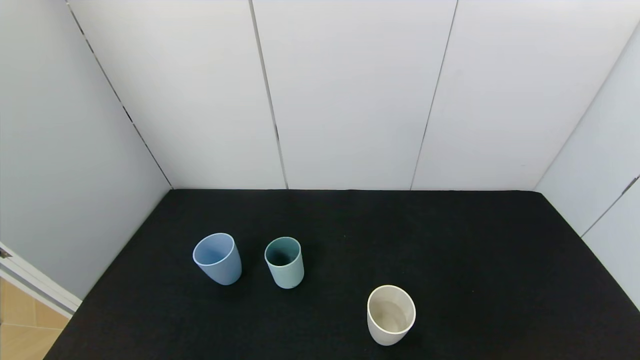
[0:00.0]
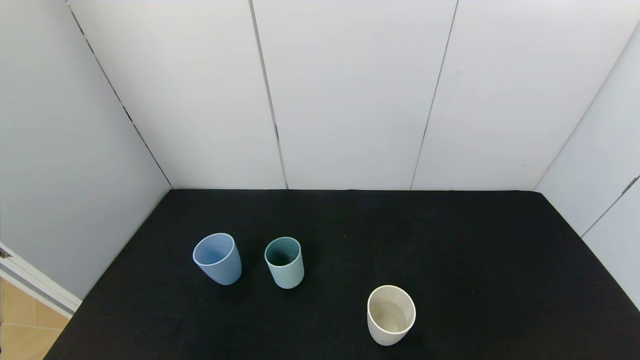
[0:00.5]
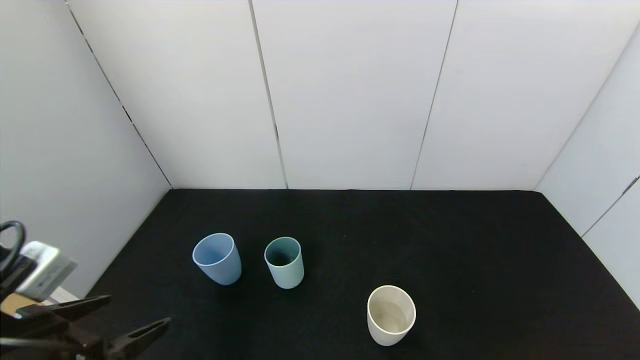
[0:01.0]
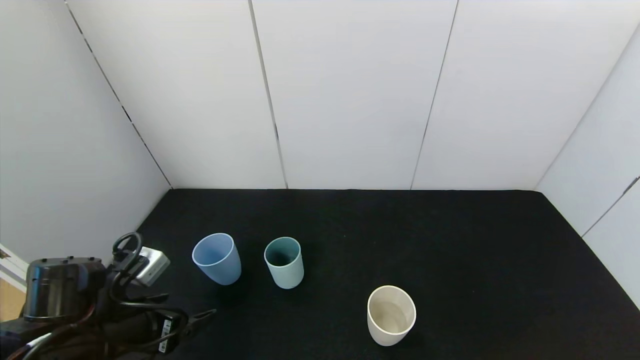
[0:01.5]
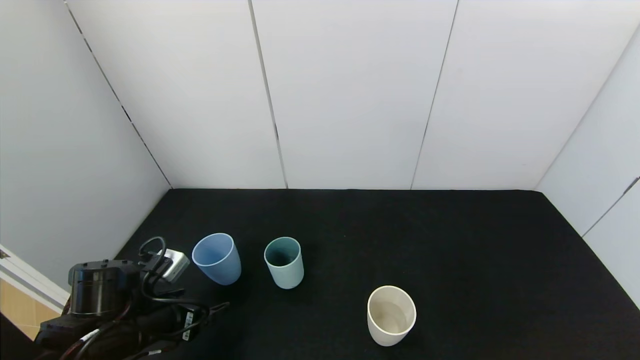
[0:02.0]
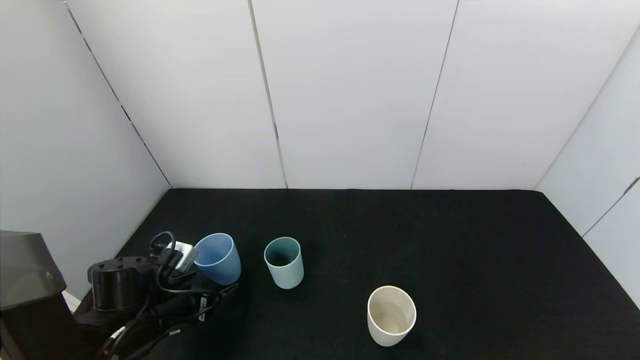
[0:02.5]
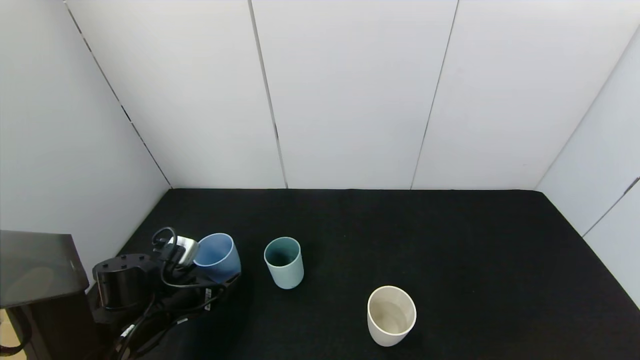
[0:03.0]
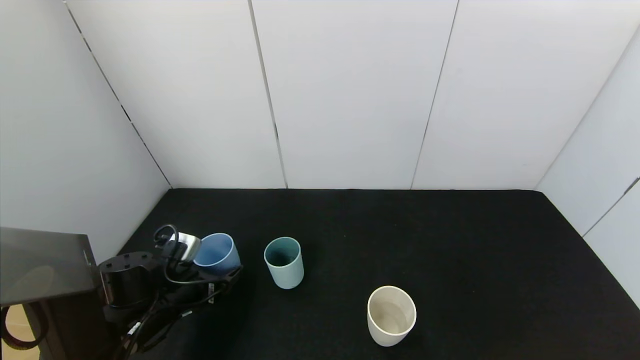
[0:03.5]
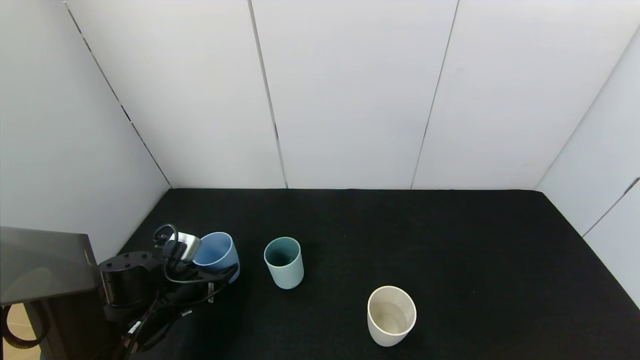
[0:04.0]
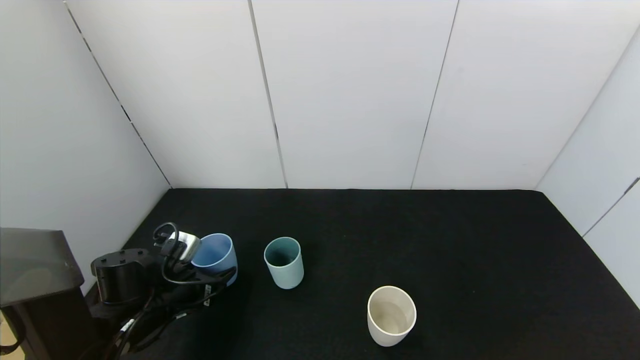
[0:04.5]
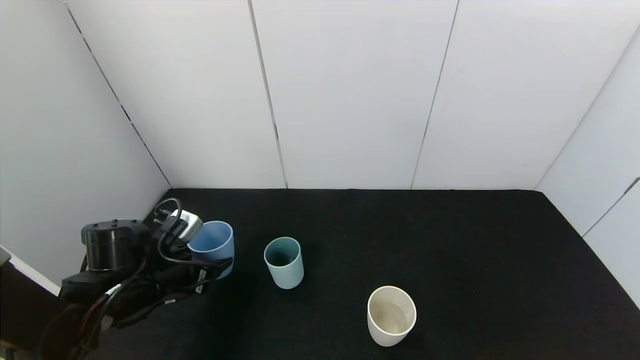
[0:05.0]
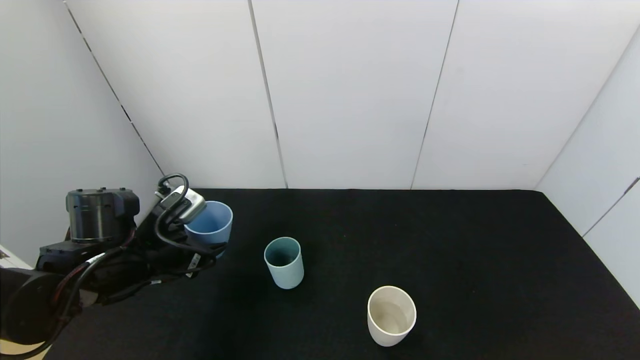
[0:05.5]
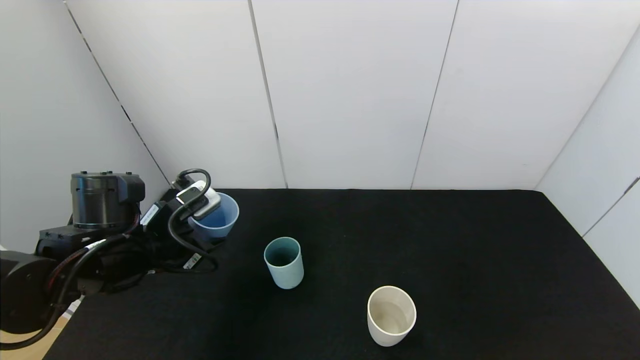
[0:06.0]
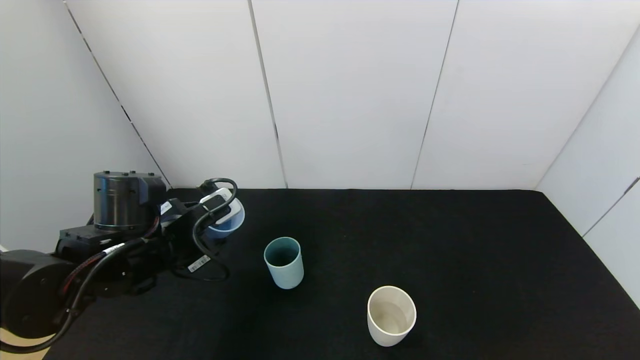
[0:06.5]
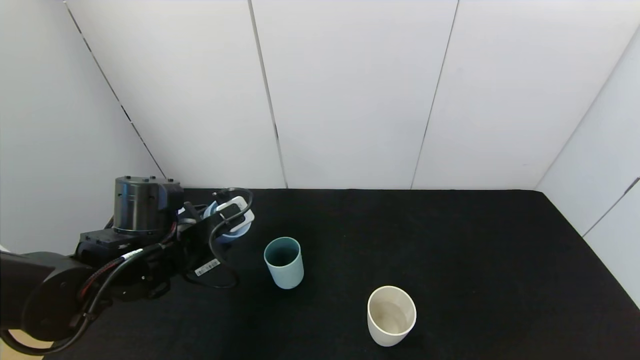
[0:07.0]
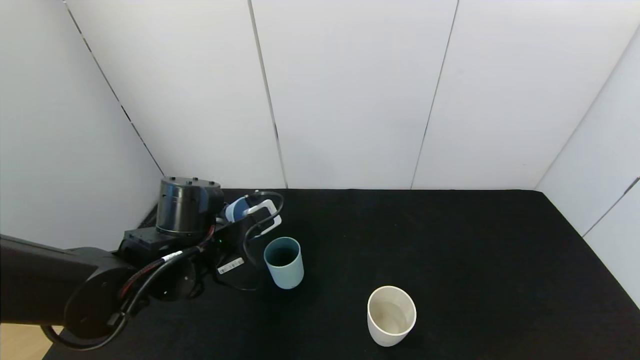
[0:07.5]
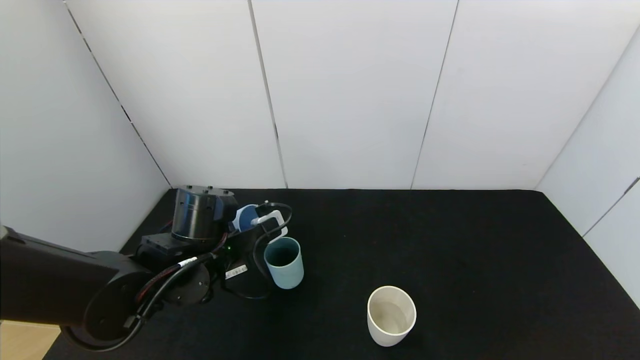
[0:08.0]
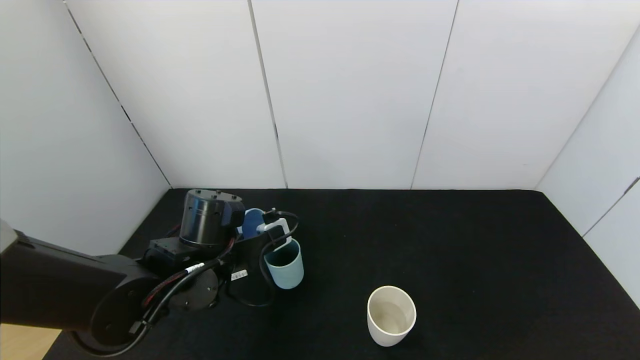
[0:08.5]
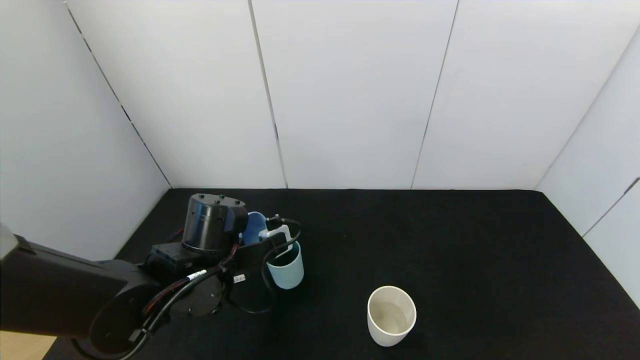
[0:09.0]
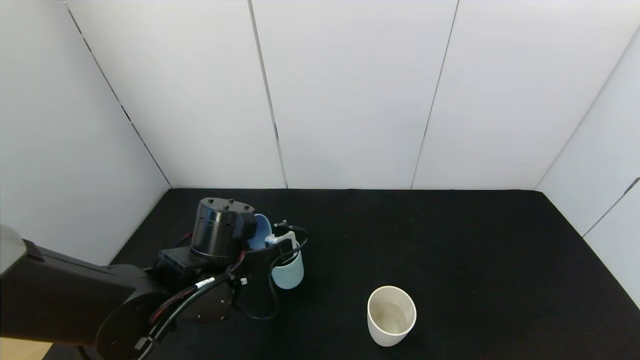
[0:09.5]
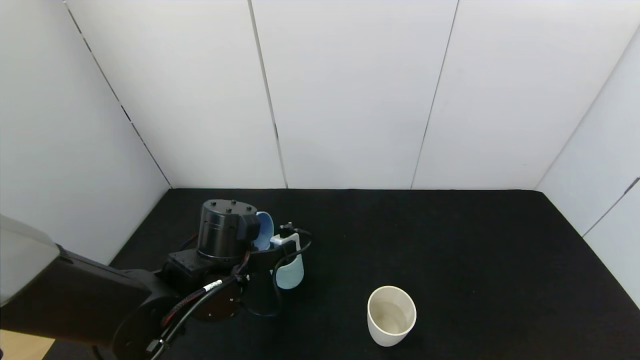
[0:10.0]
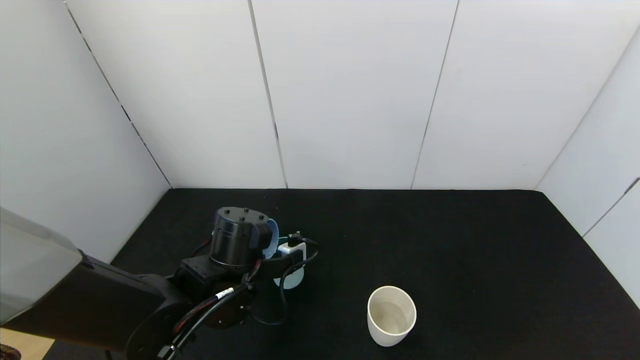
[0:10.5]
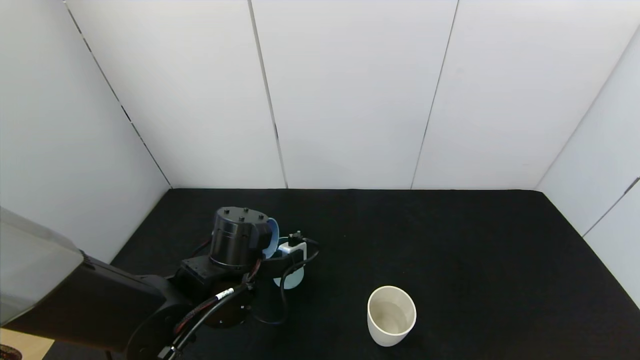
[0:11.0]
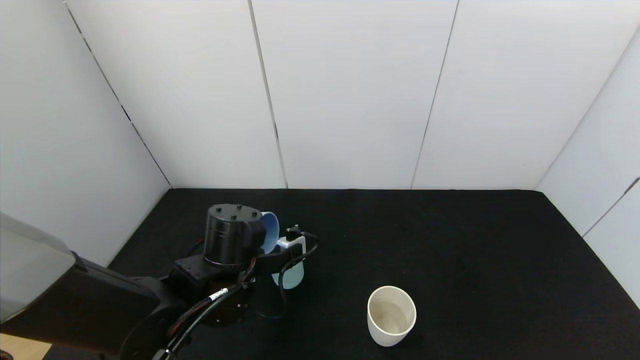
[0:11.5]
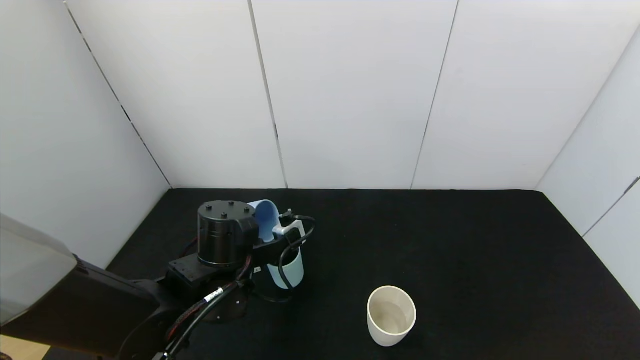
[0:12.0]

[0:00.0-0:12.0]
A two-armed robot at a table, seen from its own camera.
Task of the whole recording: use the gripper to pour the water into the other two cups on black table.
Step, 0:00.0 to 0:04.0: Grasp the blue cup with the left gripper.
Step, 0:04.5 to 0:12.0: Pour water from blue cup to green cup with the left gripper.
0:00.0 to 0:02.0: The left gripper is displaced forward by approximately 25 cm.
0:02.0 to 0:04.0: The left gripper travels forward by about 5 cm, and closes.
0:04.0 to 0:06.0: The left gripper goes about 15 cm upward.
0:06.0 to 0:08.0: The left gripper travels to the right by approximately 10 cm.
0:08.0 to 0:10.0: The grippers make only small movements.
0:10.0 to 0:12.0: The grippers make only small movements.

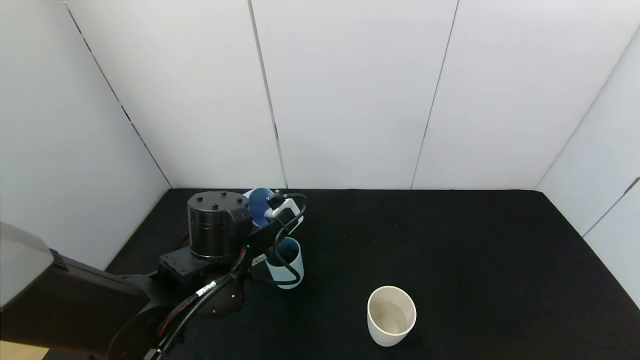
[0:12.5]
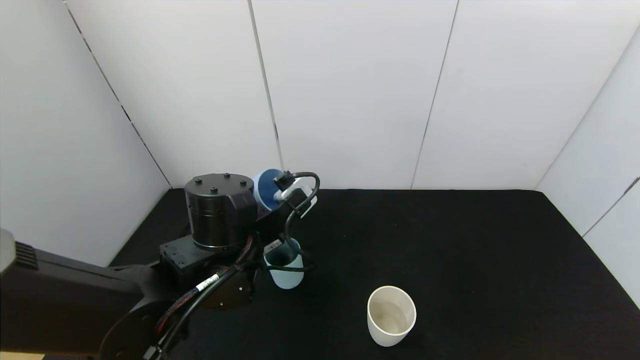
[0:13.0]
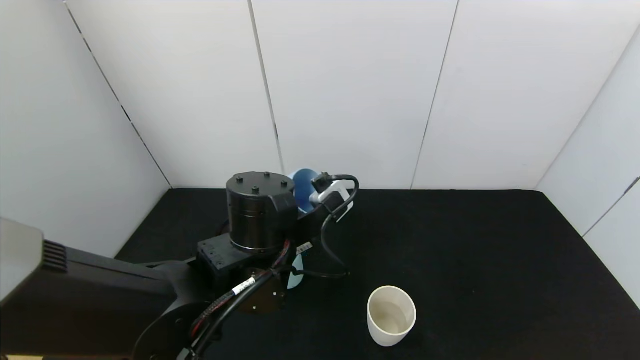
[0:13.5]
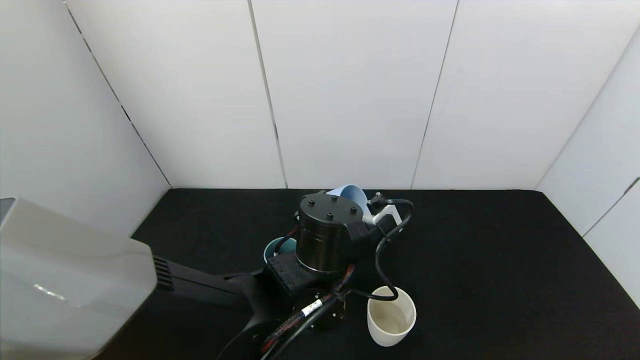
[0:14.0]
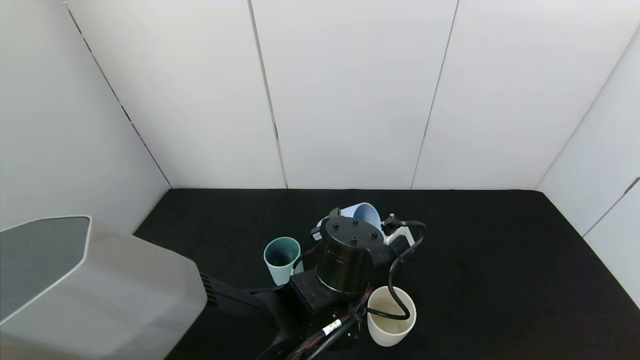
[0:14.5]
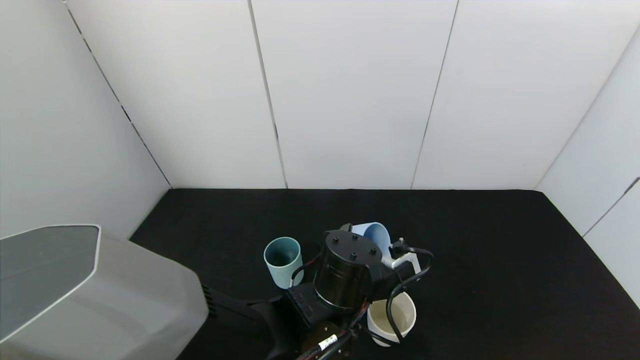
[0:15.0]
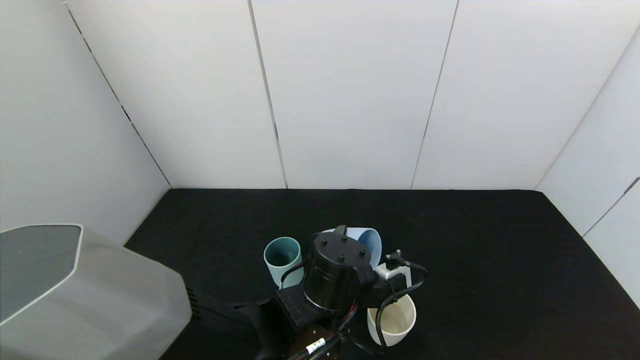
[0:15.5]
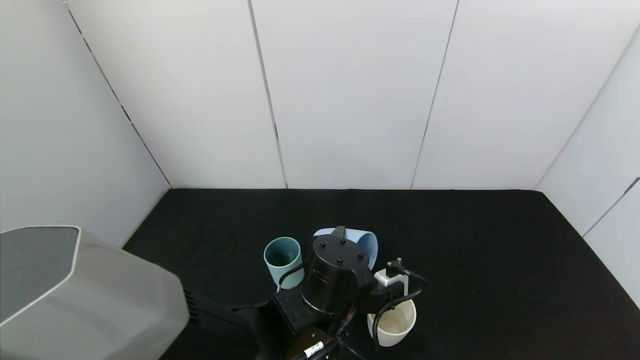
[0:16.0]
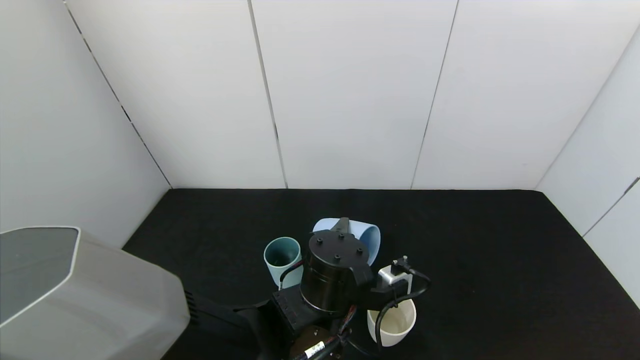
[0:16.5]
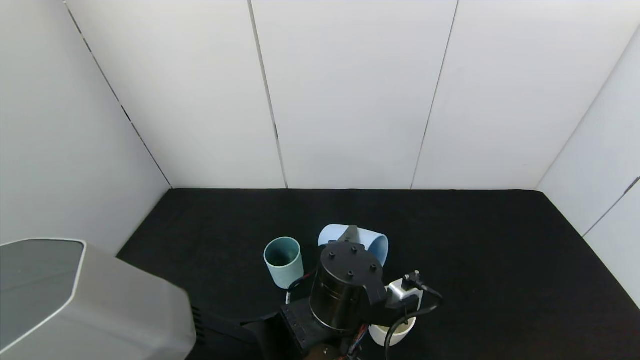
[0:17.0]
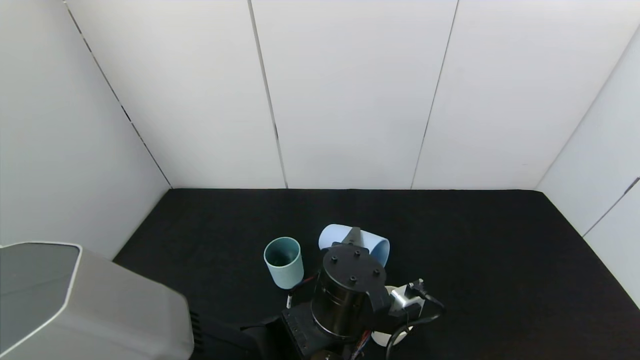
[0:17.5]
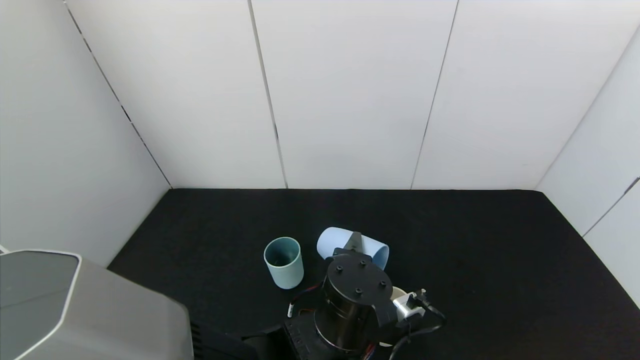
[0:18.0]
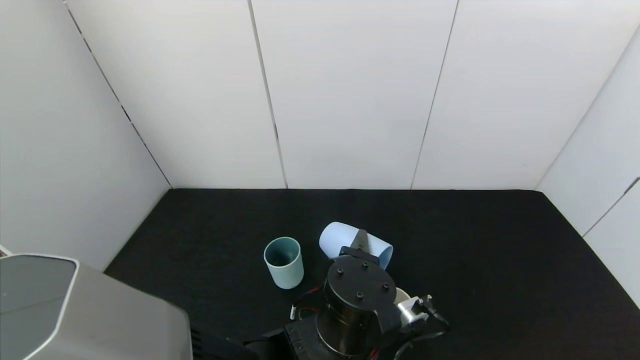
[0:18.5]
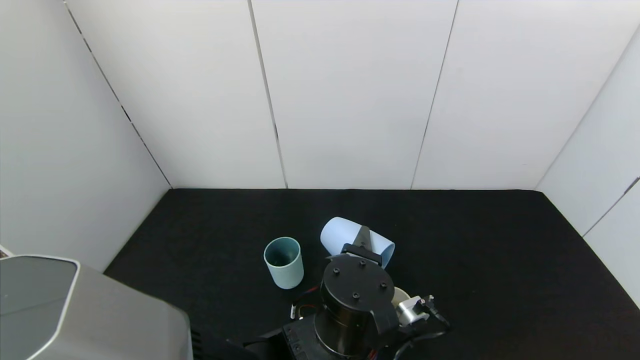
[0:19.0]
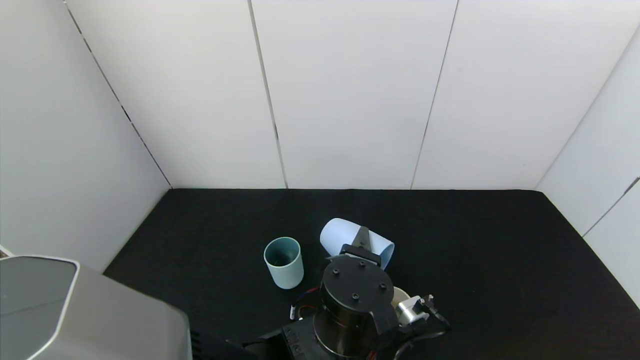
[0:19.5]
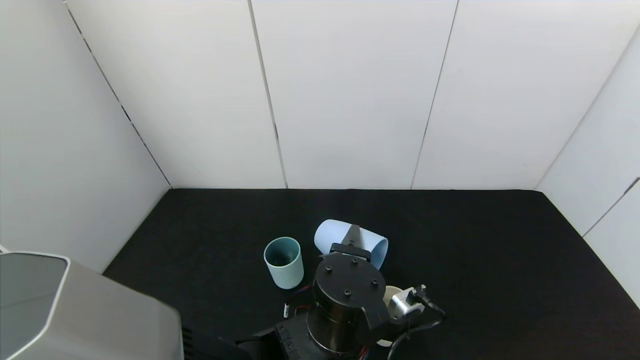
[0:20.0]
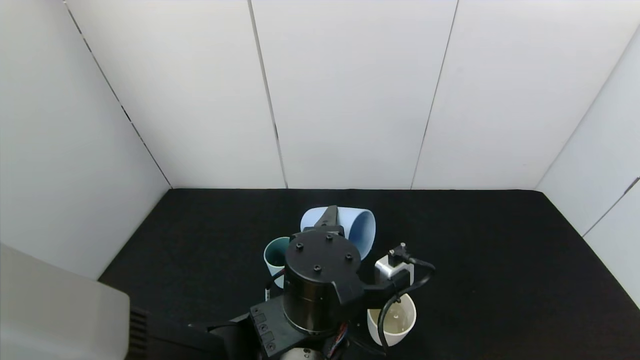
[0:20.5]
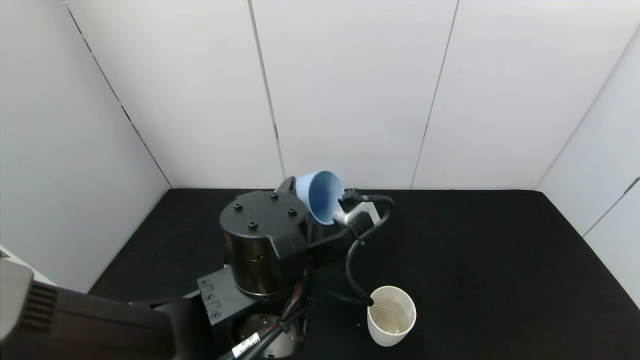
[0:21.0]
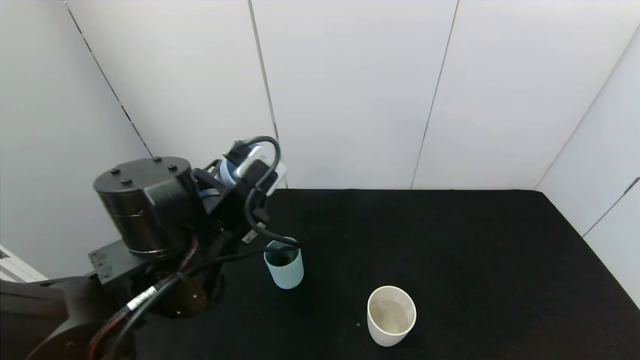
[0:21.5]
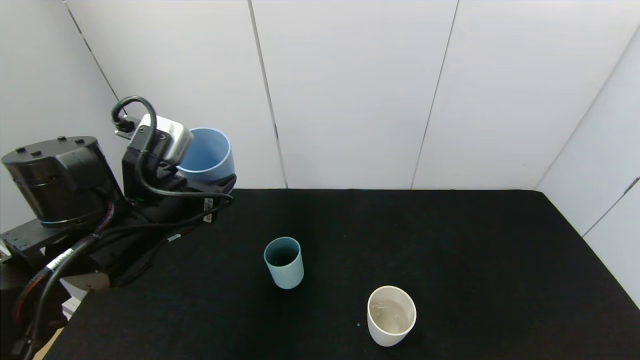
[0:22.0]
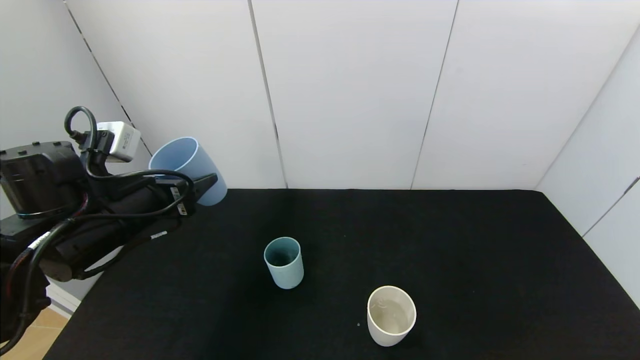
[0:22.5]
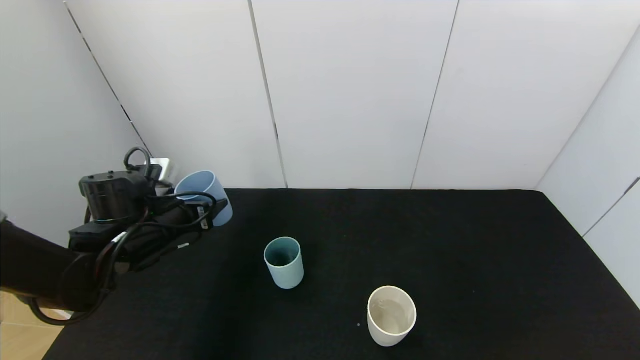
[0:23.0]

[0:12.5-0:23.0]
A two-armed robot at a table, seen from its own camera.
Task of the whole recording: use the gripper to pour the water into the other two cups on black table.
Step, 0:12.5 to 0:20.0: Pour water from blue cup to white cup with the left gripper.
0:12.5 to 0:14.5: The left gripper shifts roughly 15 cm to the right.
0:16.5 to 0:19.0: There are only small adjustments of the grippers.
0:19.0 to 0:21.0: The left gripper moves upward and to the left, approximately 10 cm.
0:21.0 to 0:23.0: The left gripper shifts about 25 cm to the left and forward.
